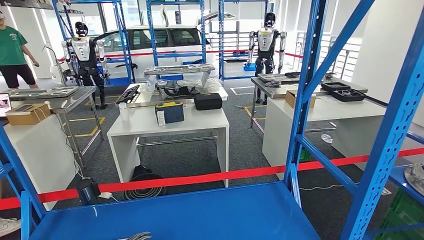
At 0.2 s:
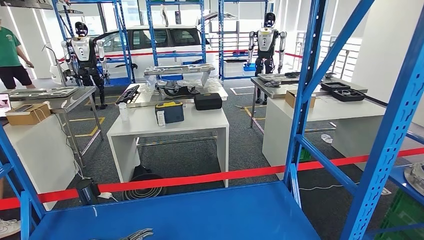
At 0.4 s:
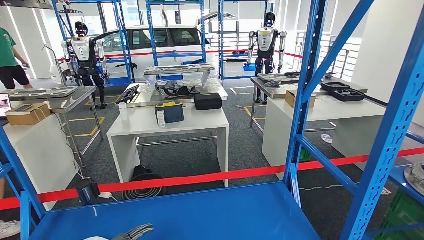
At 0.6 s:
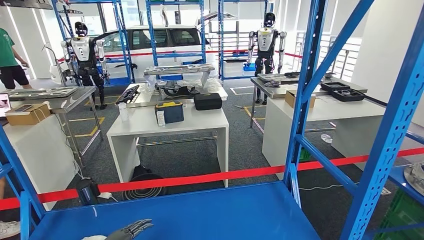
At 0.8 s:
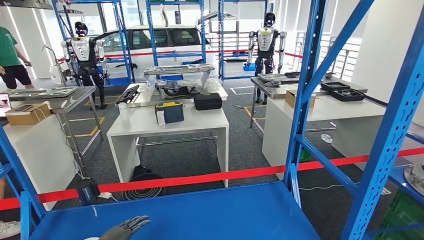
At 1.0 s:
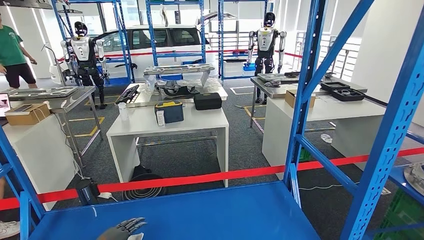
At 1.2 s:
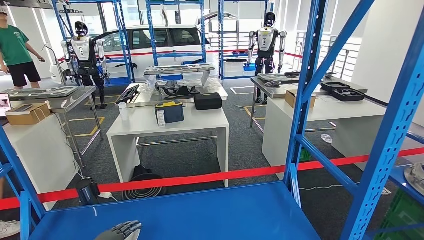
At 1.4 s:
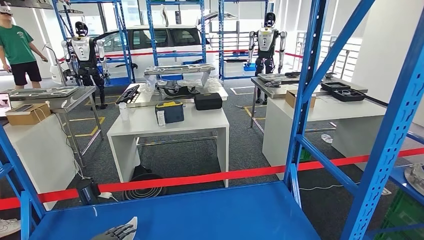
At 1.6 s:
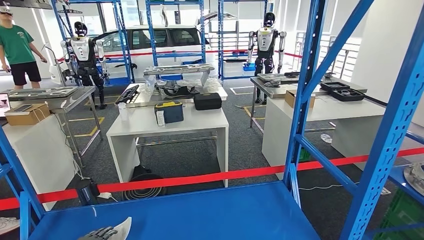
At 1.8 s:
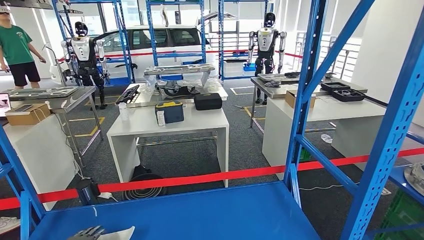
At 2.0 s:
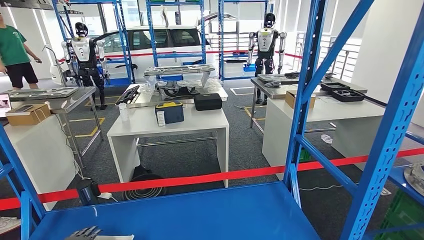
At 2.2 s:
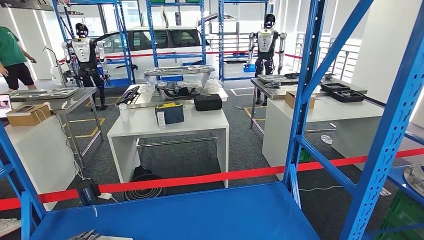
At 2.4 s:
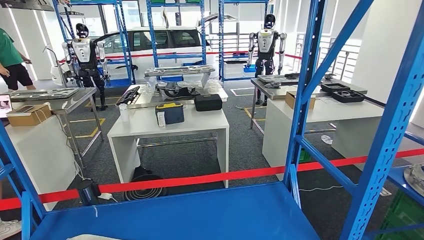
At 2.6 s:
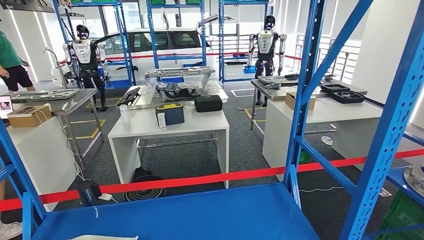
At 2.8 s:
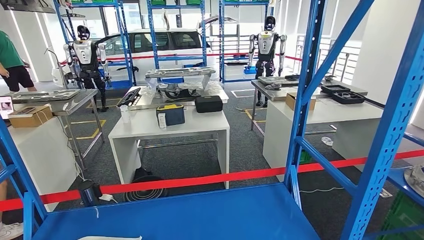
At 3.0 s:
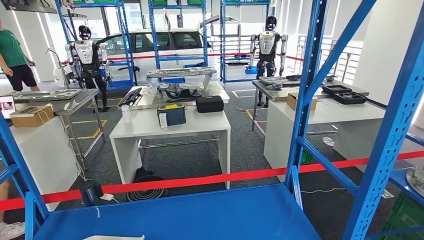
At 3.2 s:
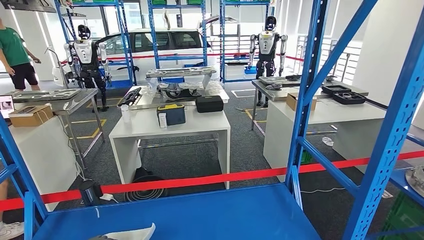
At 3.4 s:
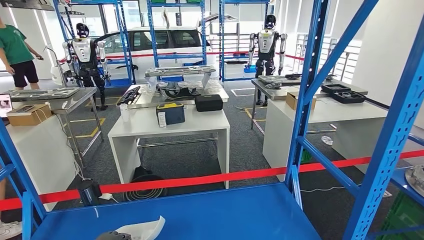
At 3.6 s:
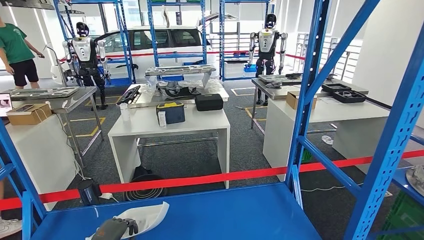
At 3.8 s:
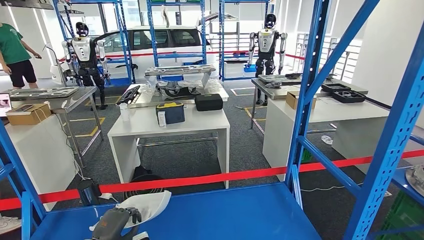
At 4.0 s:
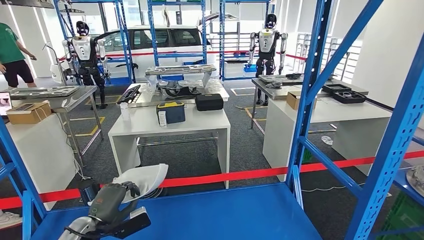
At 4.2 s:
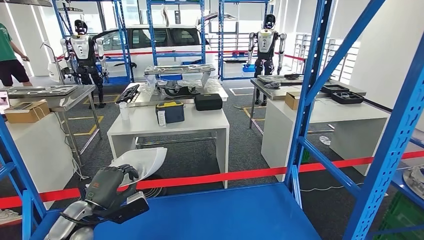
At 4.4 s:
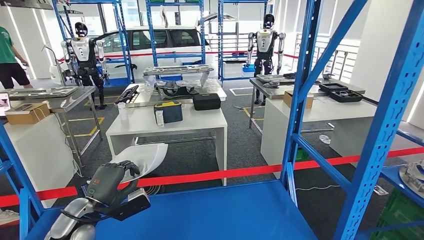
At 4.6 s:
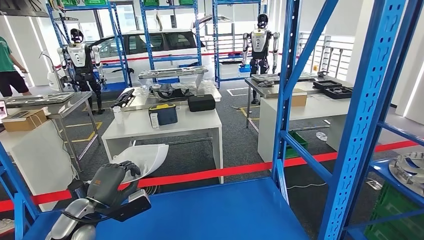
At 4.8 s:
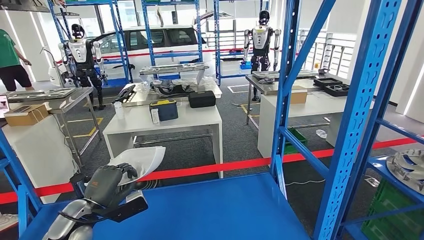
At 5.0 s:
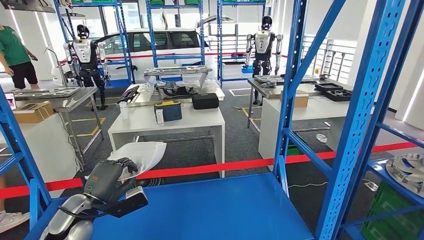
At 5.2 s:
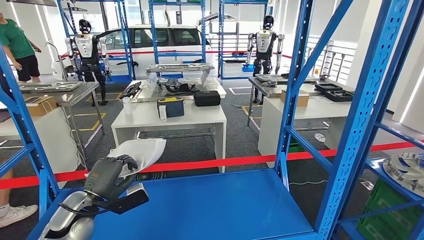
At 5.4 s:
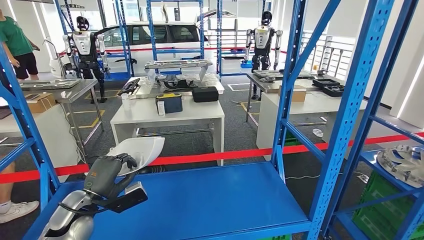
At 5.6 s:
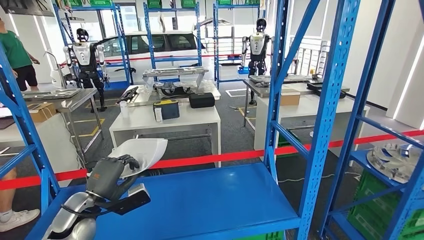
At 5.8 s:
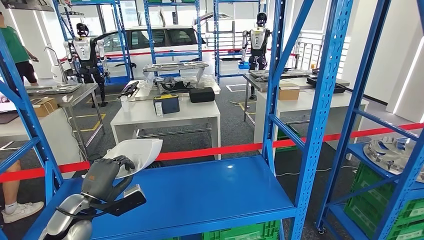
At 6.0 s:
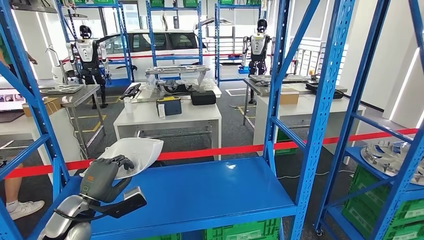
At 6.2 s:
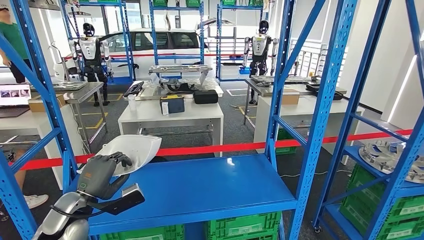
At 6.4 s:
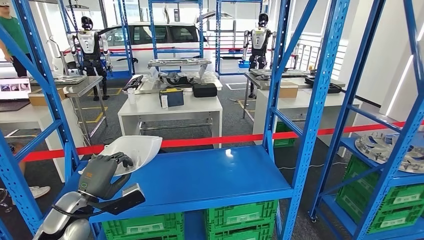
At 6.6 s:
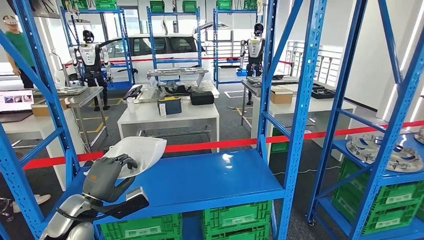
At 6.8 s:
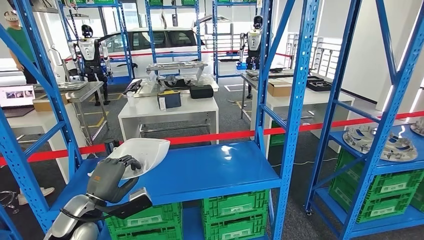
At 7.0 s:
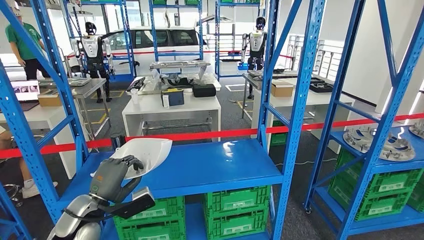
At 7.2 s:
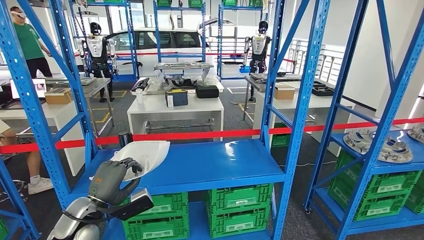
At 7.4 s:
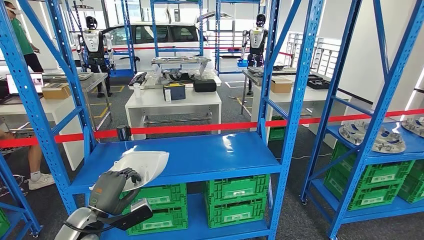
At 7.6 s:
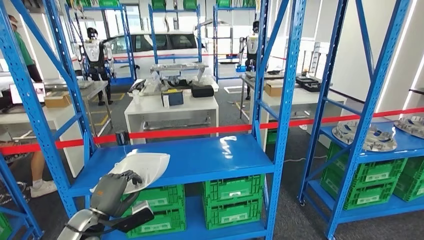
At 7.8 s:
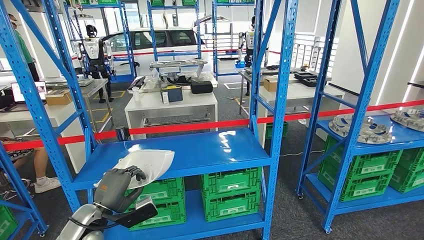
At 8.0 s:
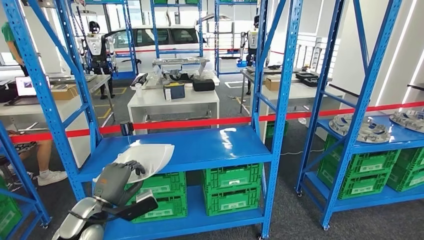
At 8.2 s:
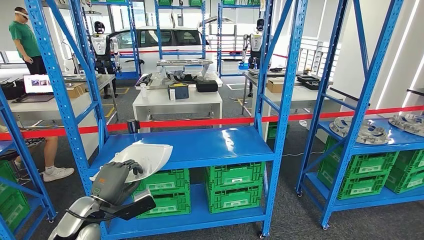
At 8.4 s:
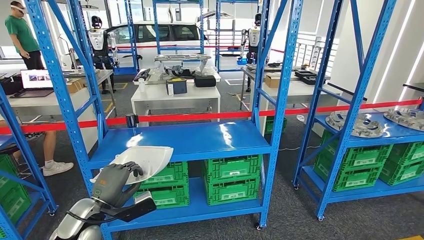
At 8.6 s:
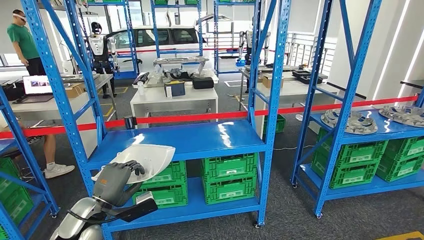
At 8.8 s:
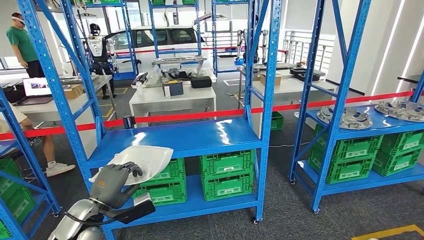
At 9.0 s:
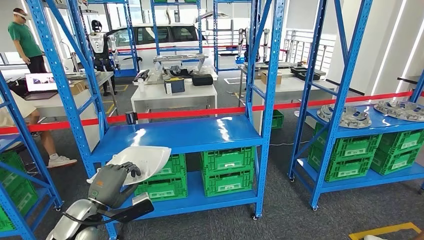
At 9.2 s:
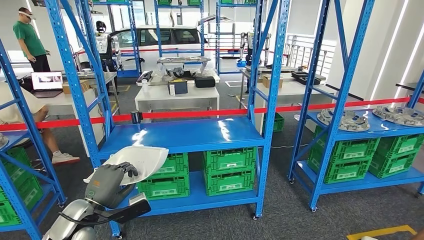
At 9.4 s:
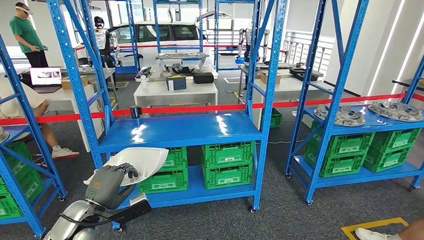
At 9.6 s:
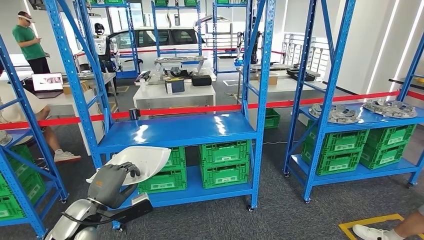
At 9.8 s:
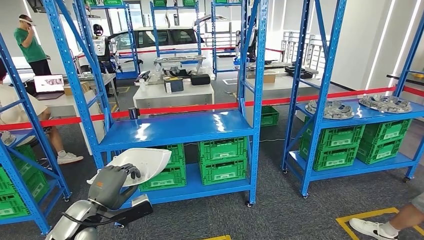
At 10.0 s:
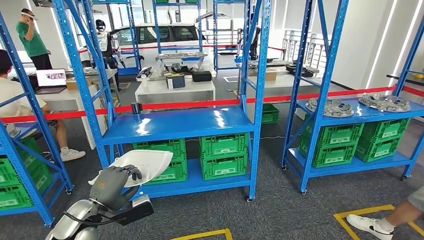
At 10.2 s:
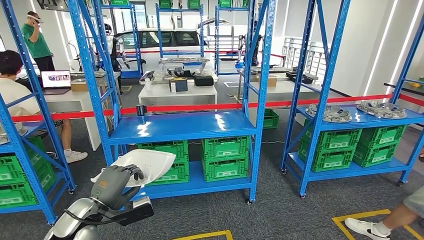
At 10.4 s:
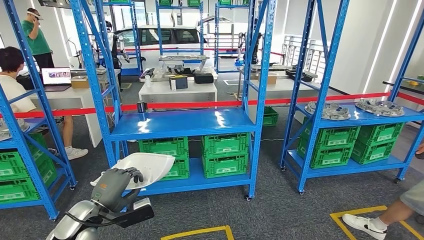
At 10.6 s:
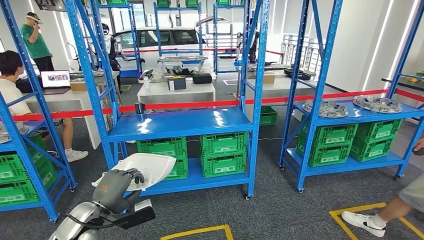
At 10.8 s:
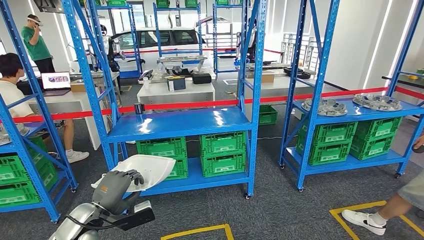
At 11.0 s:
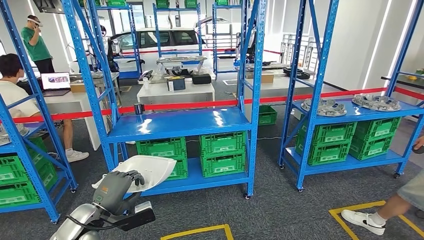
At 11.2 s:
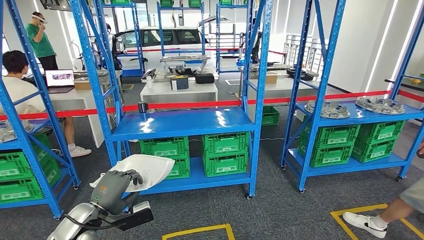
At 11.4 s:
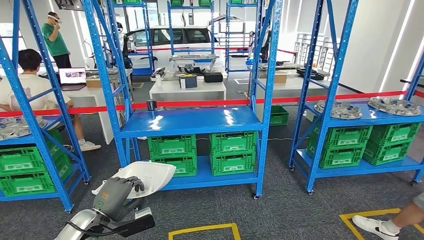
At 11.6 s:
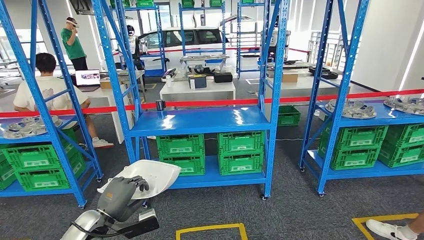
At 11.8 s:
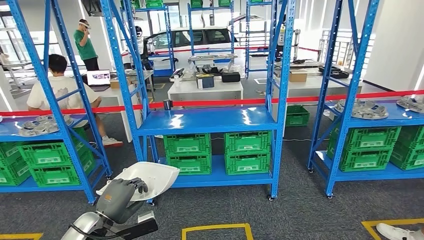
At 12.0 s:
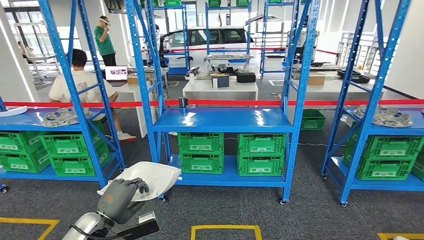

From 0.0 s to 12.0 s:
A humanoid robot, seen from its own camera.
Step, from 0.0 s to 4.2 s: Pick up the small component from the shelf.
From 0.0 s to 1.6 s: The left hand is displaced to the left by about 5 cm.

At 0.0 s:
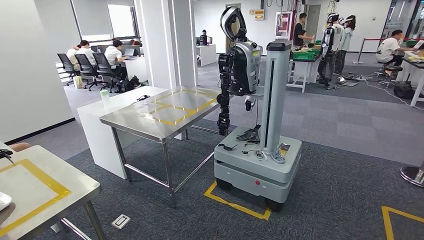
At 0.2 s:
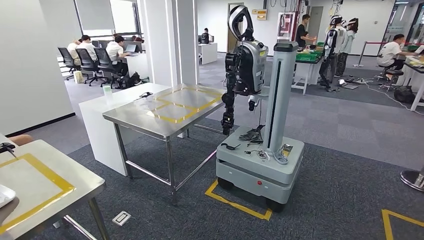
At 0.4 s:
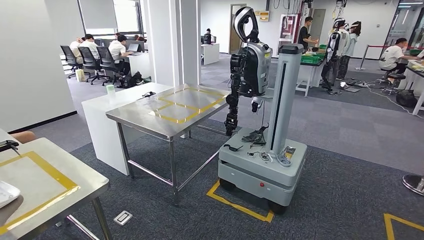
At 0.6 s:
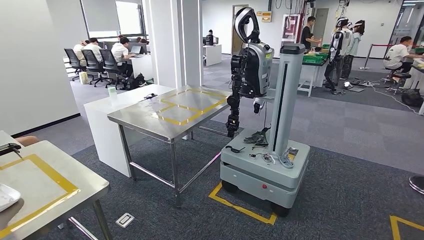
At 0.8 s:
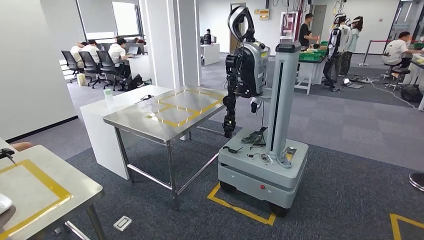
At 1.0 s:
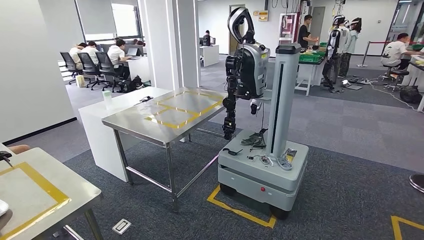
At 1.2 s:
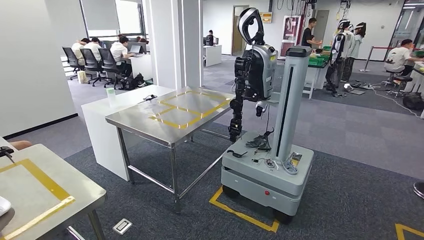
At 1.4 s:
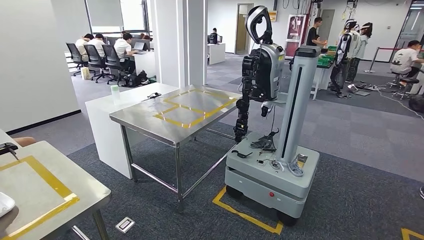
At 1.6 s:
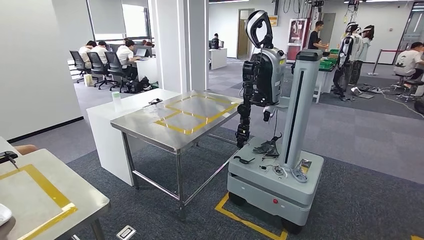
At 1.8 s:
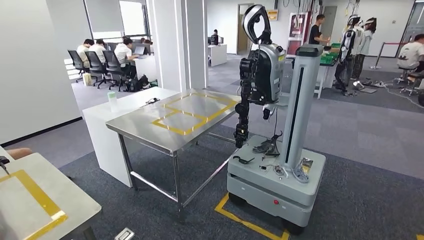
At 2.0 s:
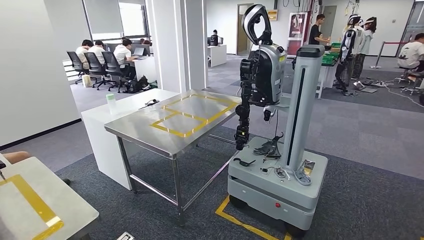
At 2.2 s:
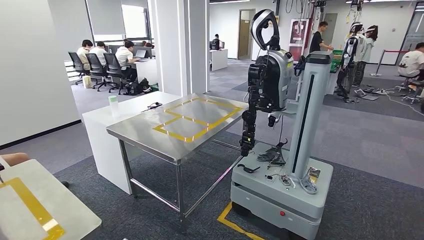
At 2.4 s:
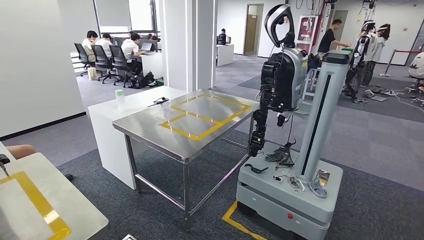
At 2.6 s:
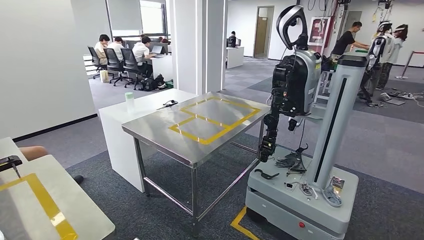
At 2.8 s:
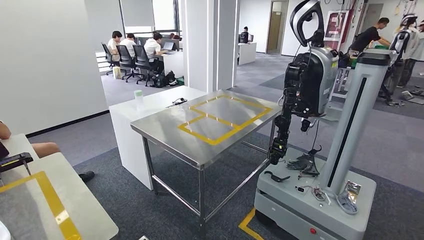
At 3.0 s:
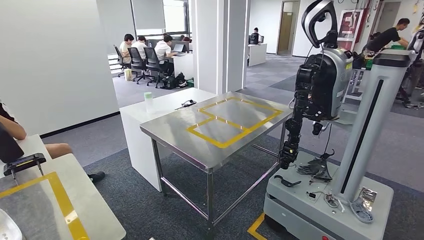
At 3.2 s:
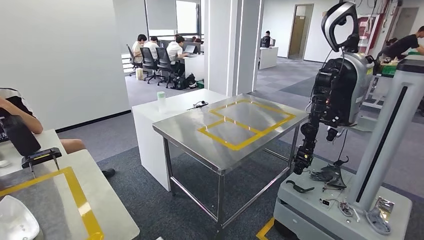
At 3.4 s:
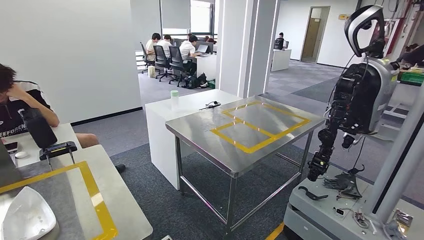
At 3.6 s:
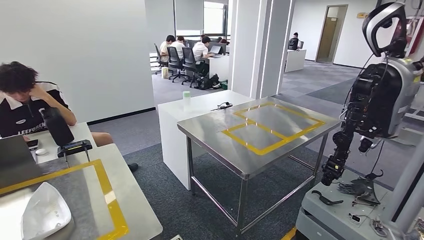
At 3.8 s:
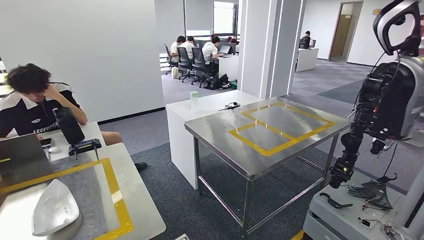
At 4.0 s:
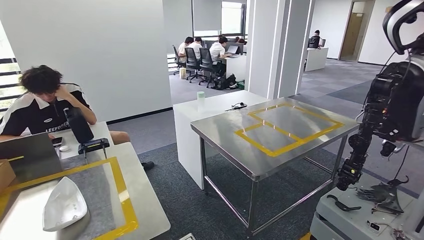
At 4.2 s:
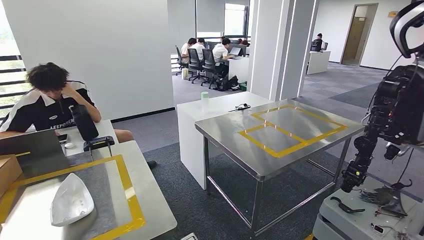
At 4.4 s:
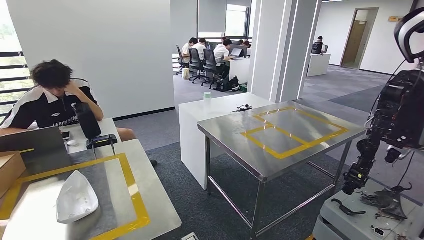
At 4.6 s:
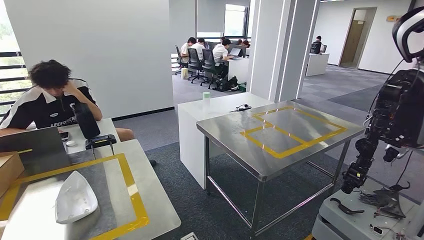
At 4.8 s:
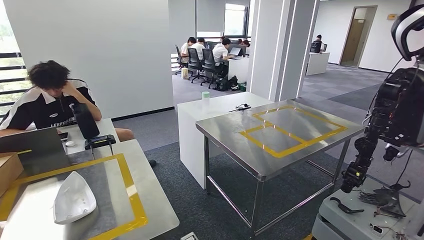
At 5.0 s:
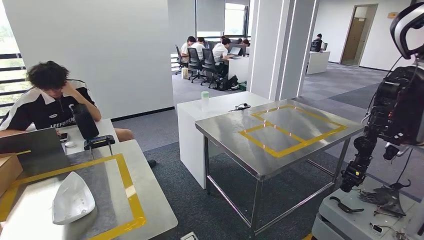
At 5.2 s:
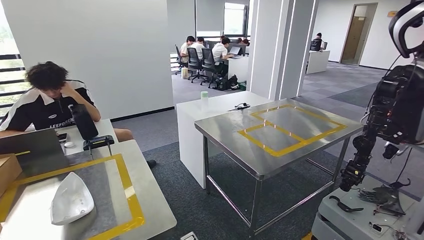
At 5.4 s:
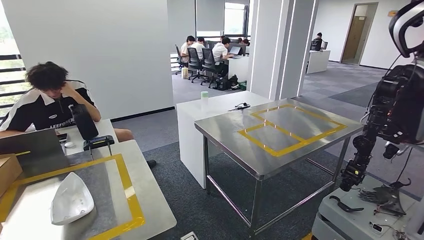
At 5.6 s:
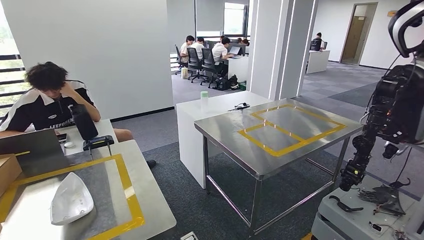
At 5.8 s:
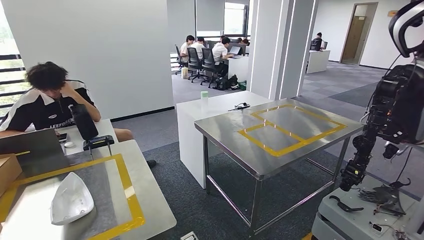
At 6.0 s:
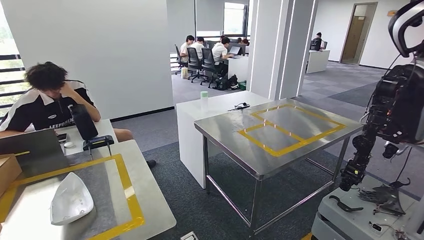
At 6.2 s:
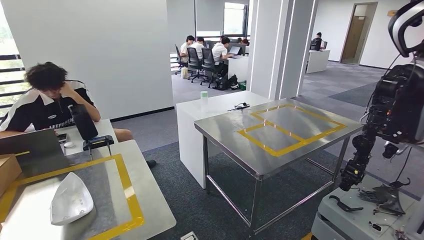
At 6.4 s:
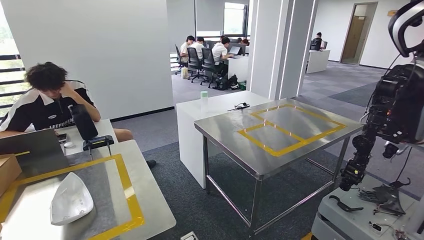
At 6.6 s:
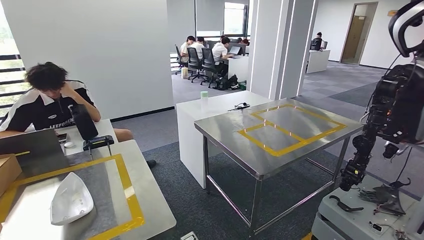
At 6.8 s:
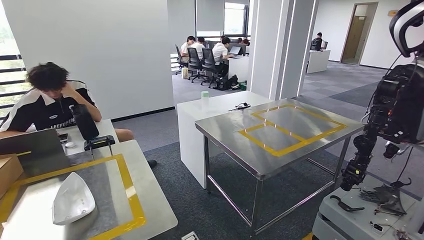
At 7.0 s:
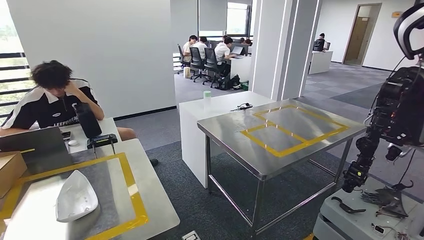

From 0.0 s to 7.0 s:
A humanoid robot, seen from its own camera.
Step, from 0.0 s to 2.6 s: Bring the small component to the front of the workbench.
From 4.2 s to 5.6 s: The hands stay close to where they were, moving slightly.
